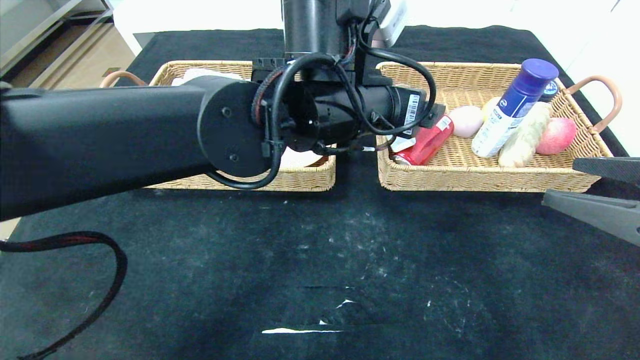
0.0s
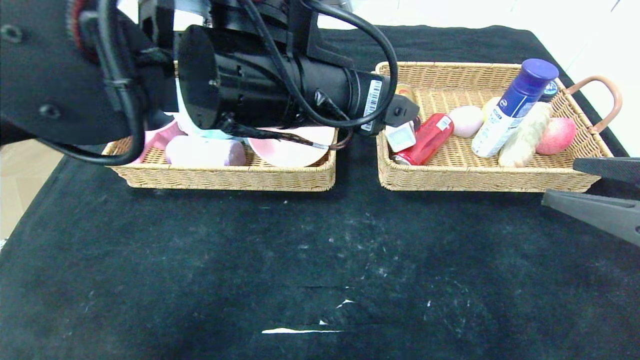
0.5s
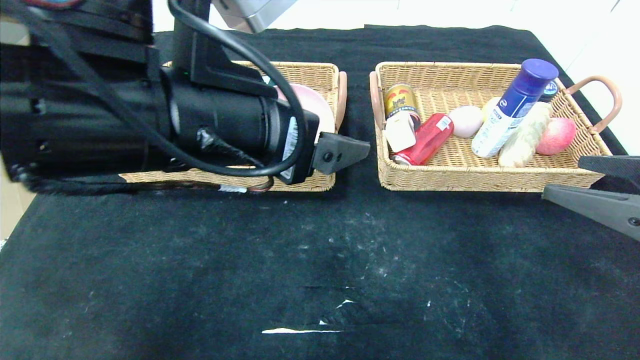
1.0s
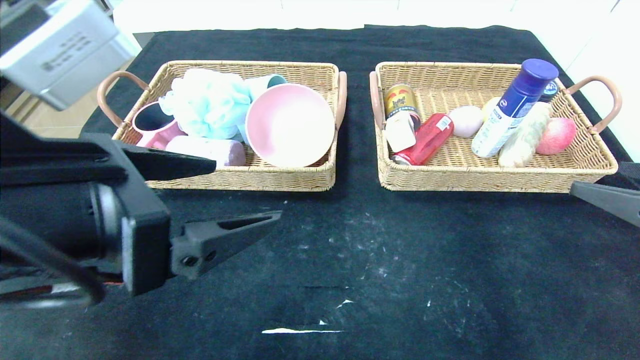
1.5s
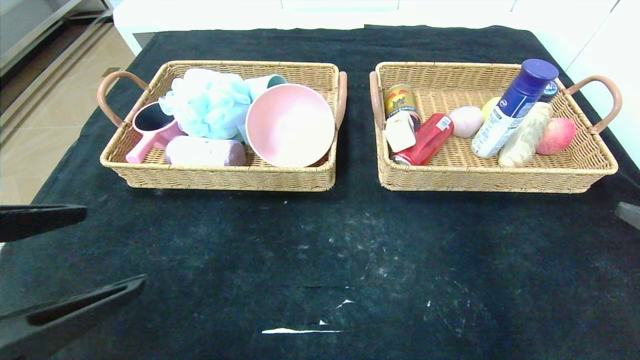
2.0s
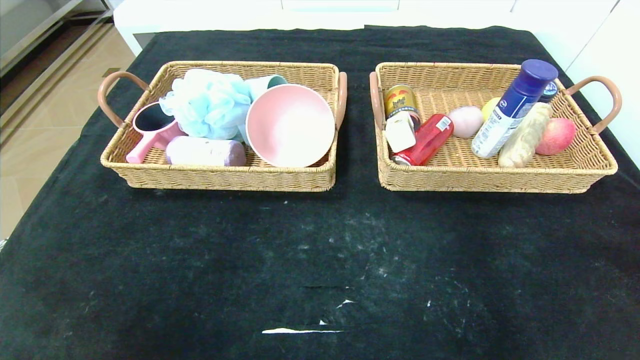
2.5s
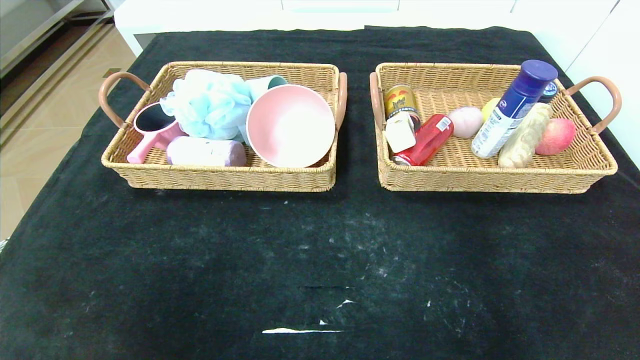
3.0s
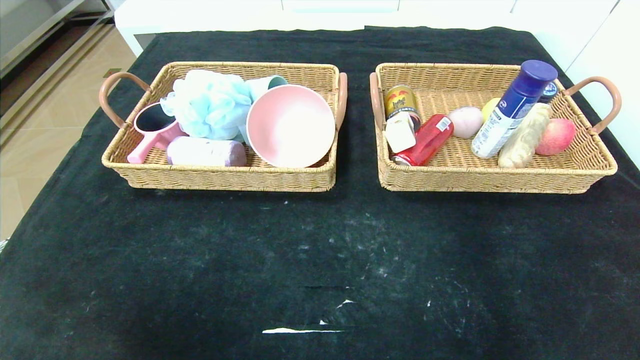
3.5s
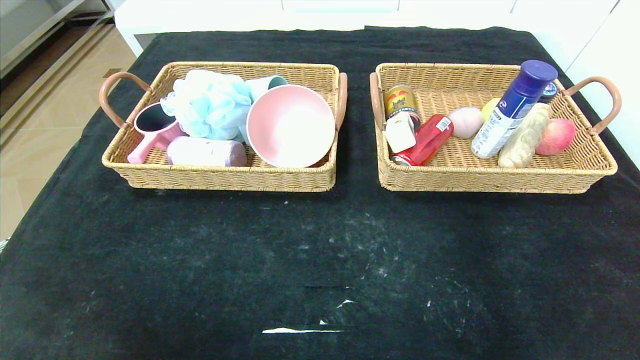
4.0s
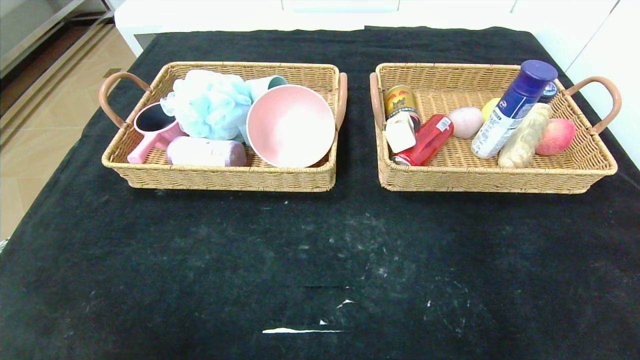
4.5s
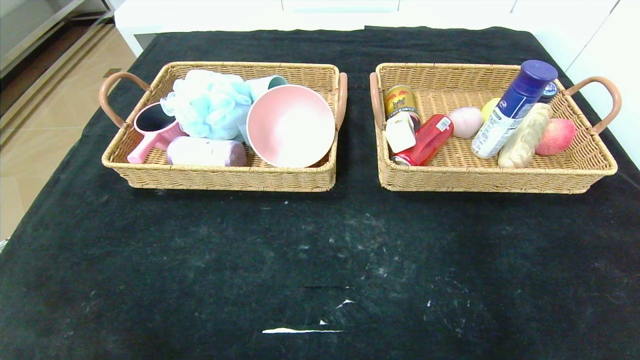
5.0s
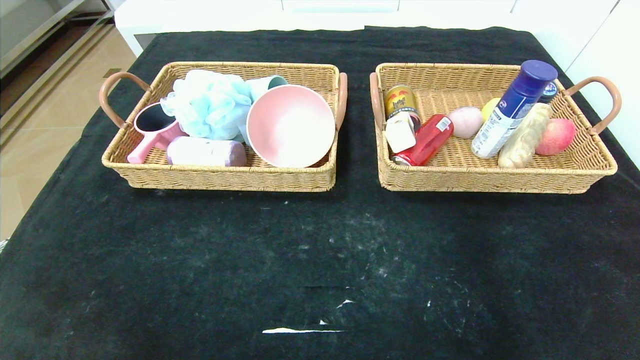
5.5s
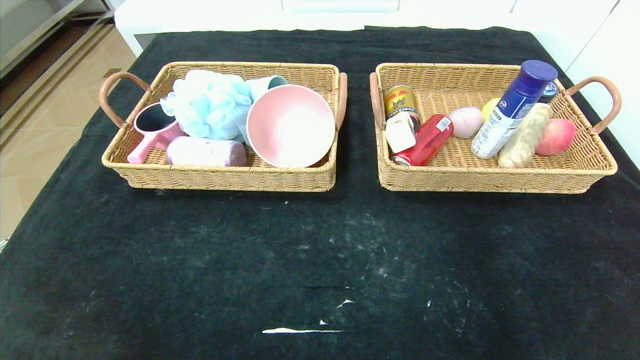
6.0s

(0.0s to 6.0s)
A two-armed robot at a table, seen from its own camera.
0.0s - 2.0s: The right gripper ends up about 5 cm from where it was. The left gripper shifts about 35 cm to the left and backward.
2.0s - 4.0s: The grippers both shift backward and downward by approximately 20 cm.
